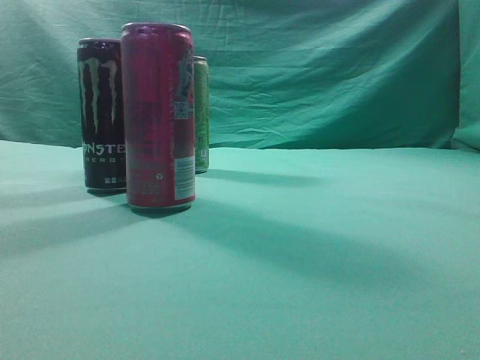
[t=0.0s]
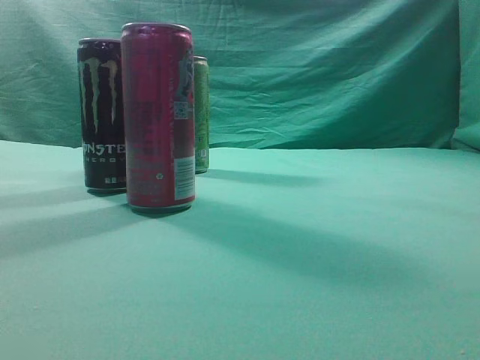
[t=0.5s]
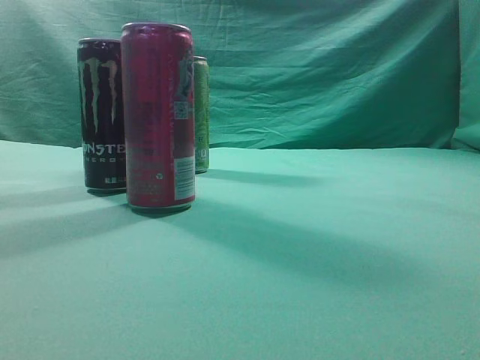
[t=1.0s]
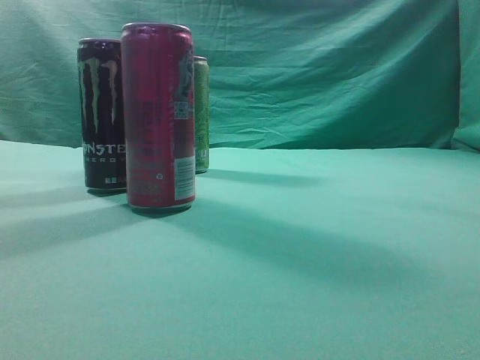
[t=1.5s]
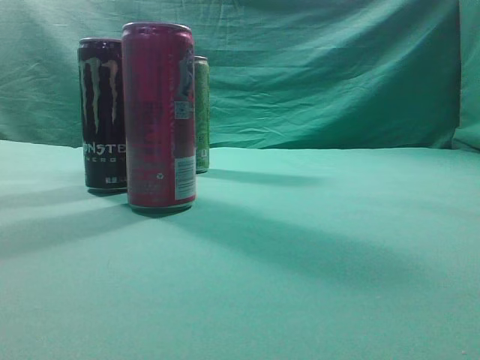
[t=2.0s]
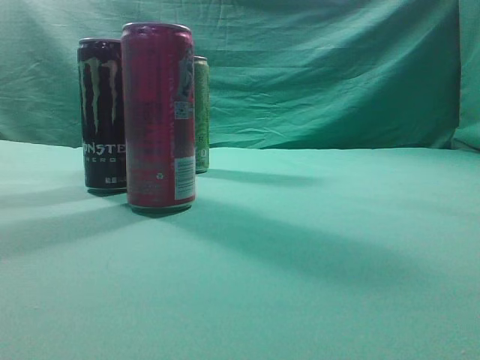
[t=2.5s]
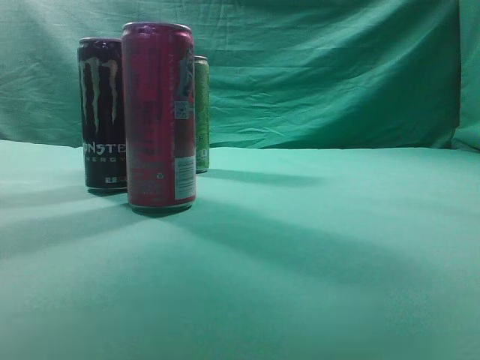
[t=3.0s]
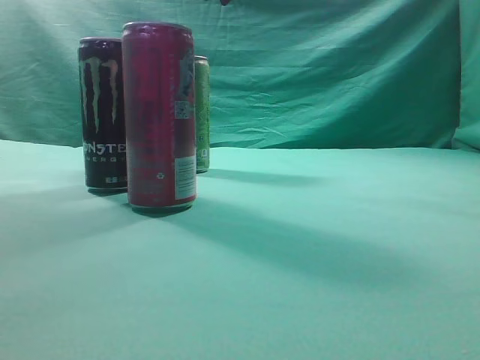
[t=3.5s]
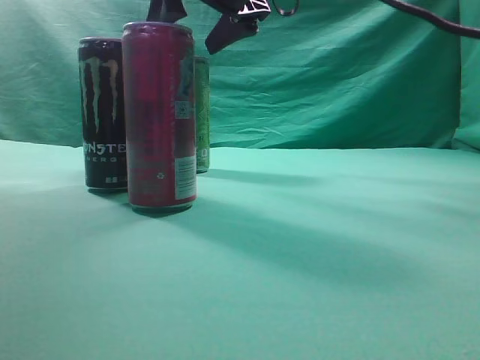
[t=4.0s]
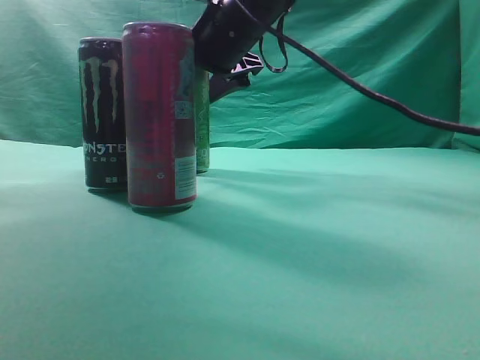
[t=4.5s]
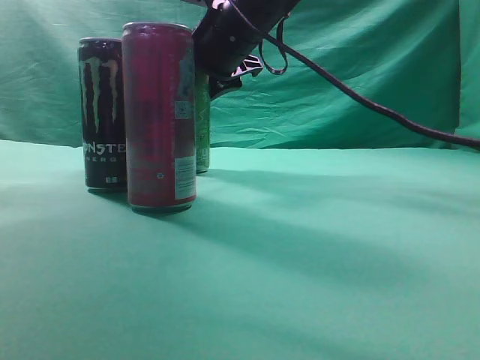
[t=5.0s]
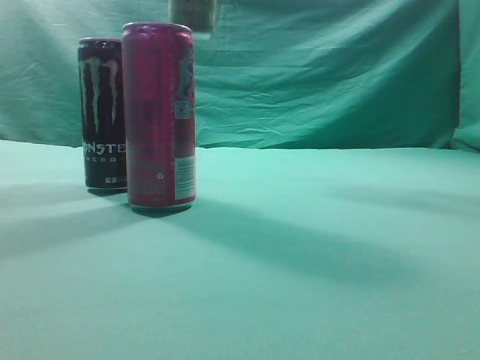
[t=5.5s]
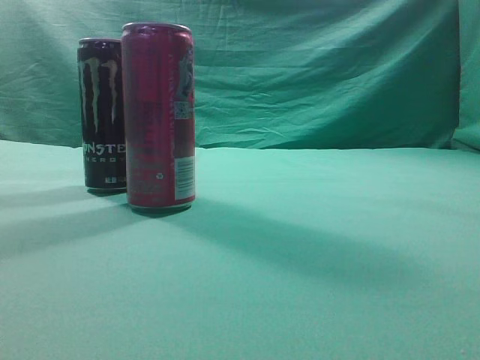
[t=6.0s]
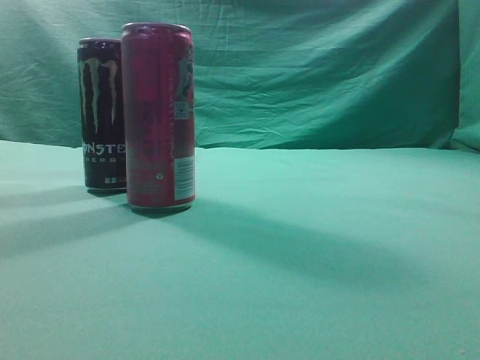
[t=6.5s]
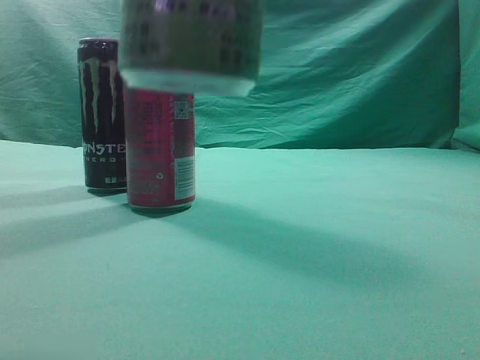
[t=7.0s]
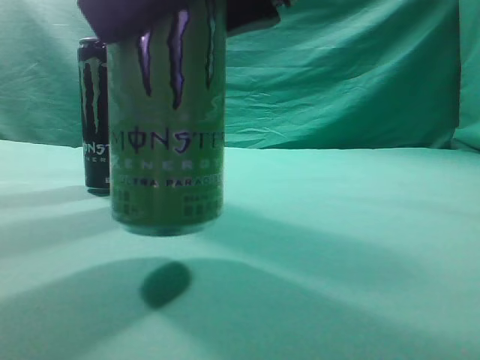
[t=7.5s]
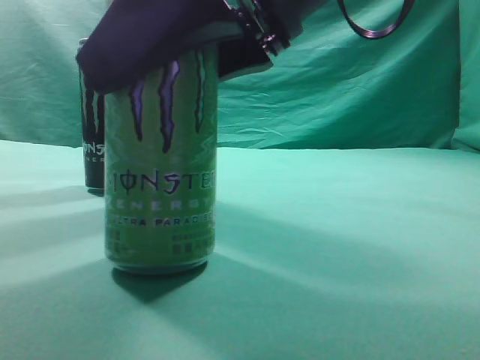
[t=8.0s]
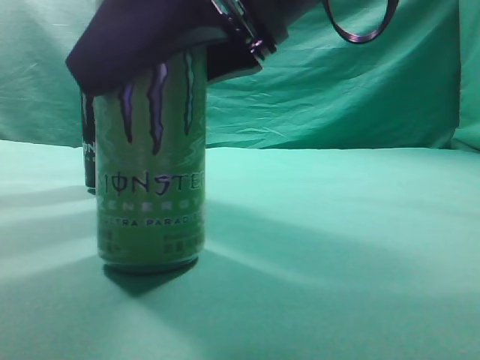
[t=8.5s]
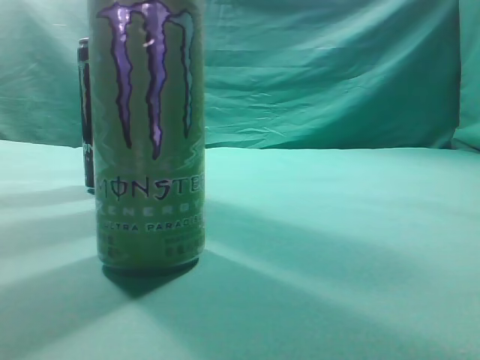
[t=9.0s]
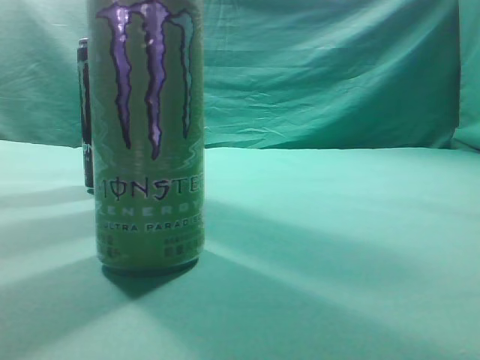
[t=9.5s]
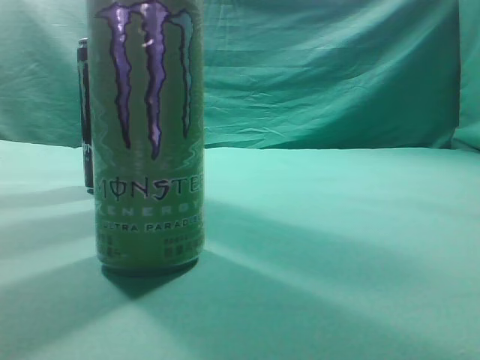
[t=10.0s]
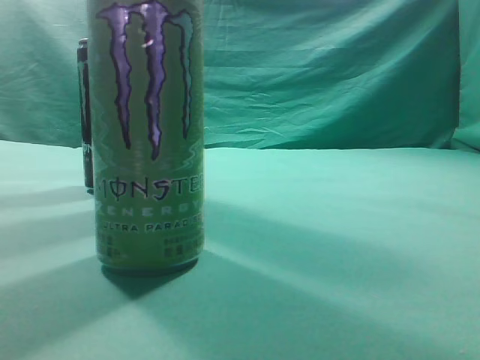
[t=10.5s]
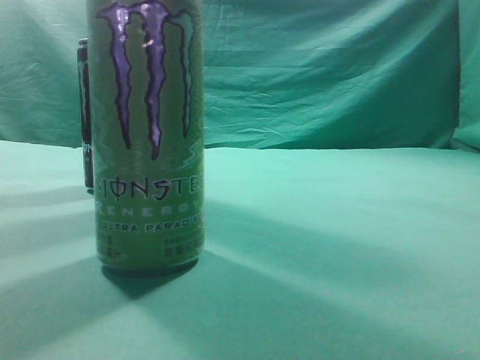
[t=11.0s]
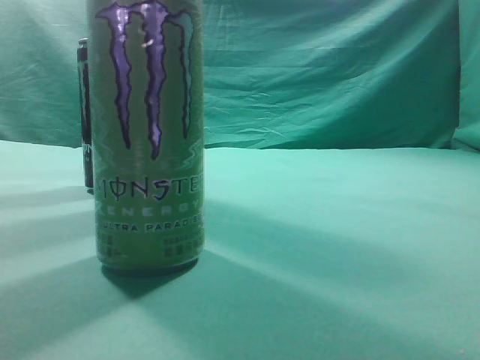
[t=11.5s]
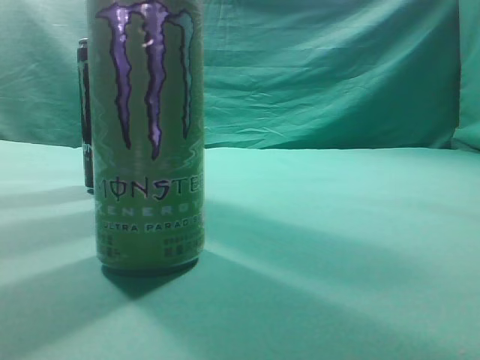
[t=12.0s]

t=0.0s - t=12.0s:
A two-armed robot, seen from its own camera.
Task of the whole recording: move one drink among three beverages.
Step, t=0.0s - t=5.0s: Grasp the beverage bottle placed at the back of the desk.
Step, t=5.5s - t=8.5s: Place the beverage bottle to the front of the table.
t=2.0s - t=4.0s: The right gripper heads forward and to the left, covering roughly 50 cm, and opens its fingers.
t=4.0s - t=6.0s: The right gripper travels upward, backward and to the right by roughly 25 cm.
t=6.0s - t=8.0s: The right gripper travels downward by some 25 cm.
t=8.0s - t=10.0s: The right gripper travels upward, backward and to the right by approximately 30 cm, and closes its fingers.
